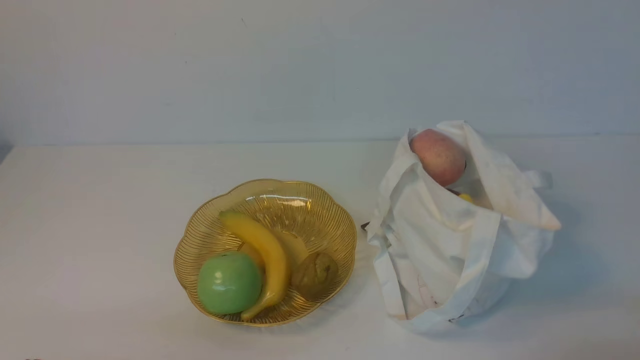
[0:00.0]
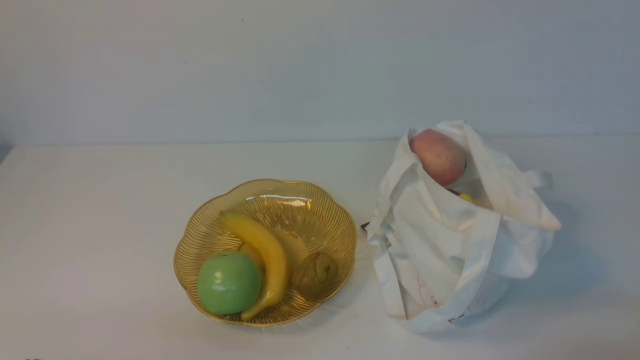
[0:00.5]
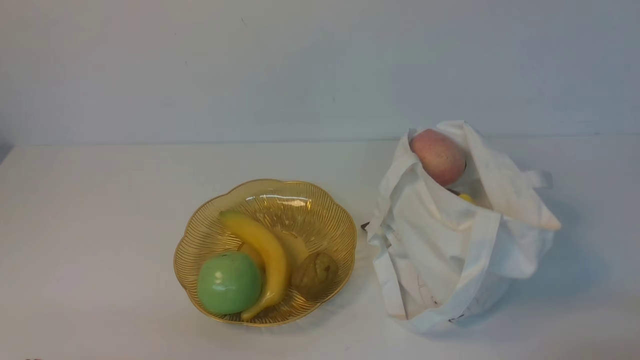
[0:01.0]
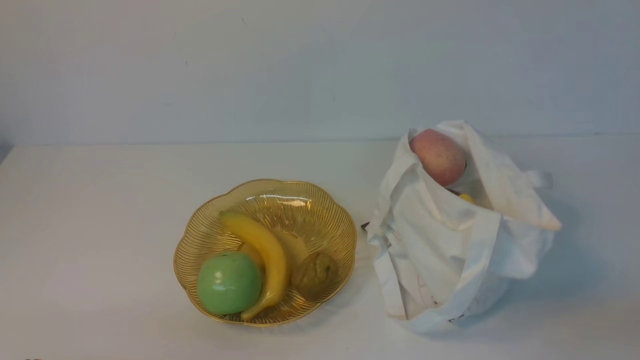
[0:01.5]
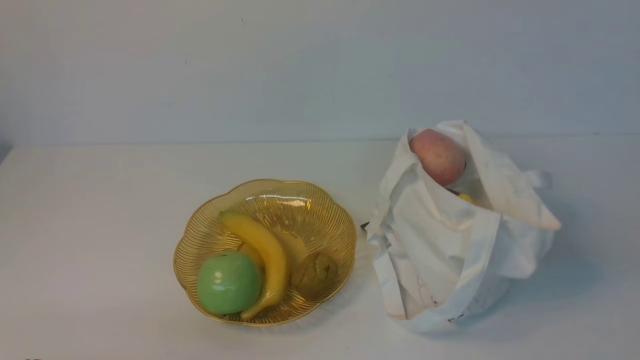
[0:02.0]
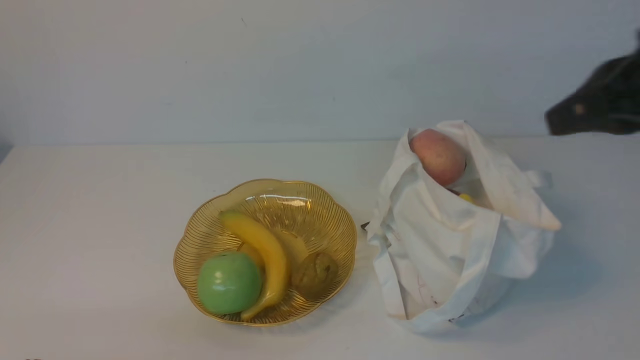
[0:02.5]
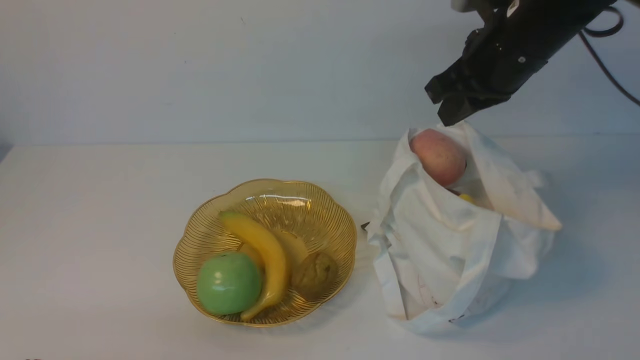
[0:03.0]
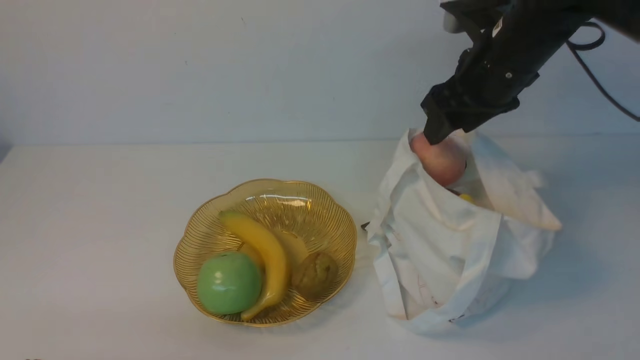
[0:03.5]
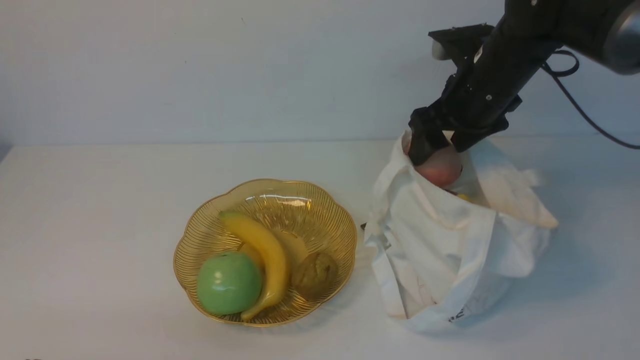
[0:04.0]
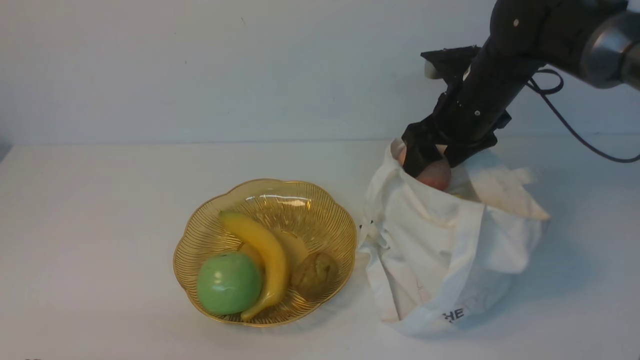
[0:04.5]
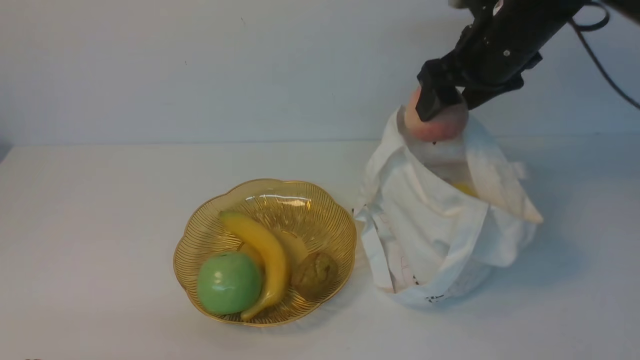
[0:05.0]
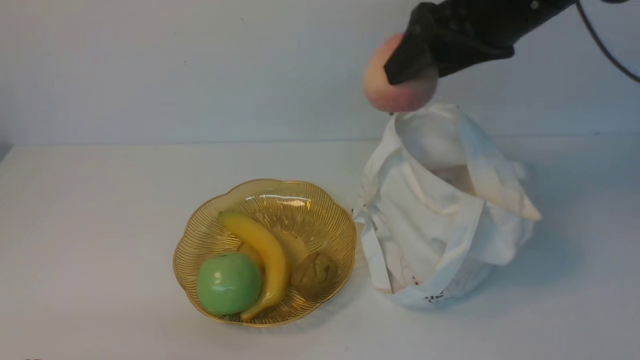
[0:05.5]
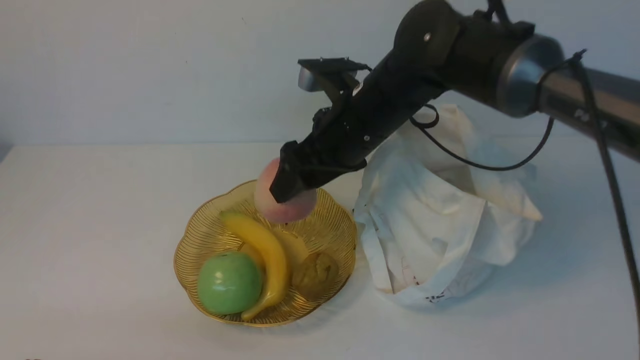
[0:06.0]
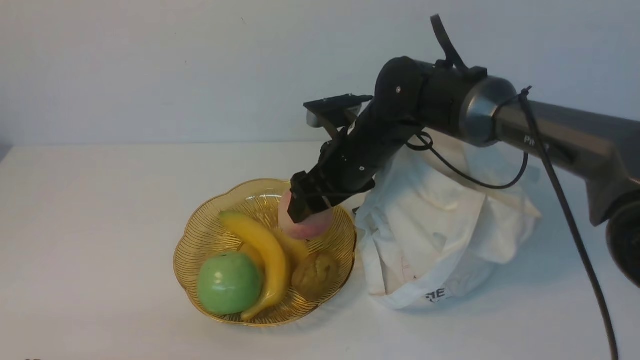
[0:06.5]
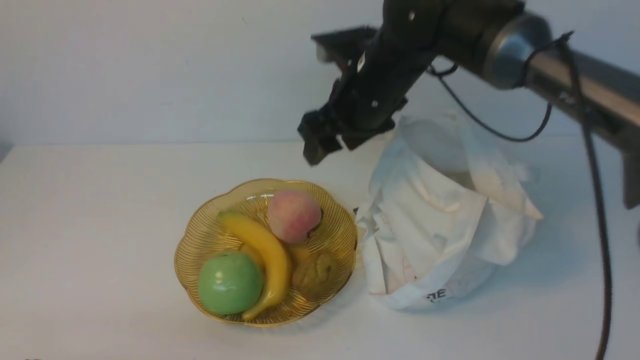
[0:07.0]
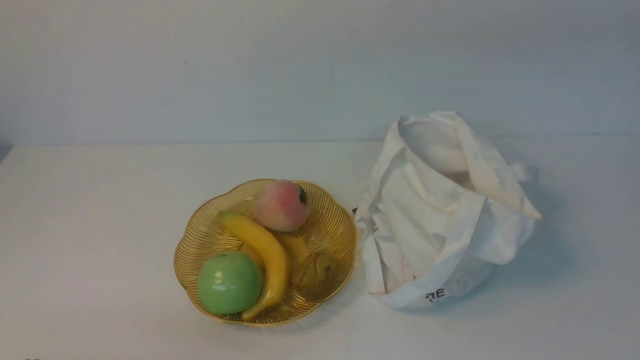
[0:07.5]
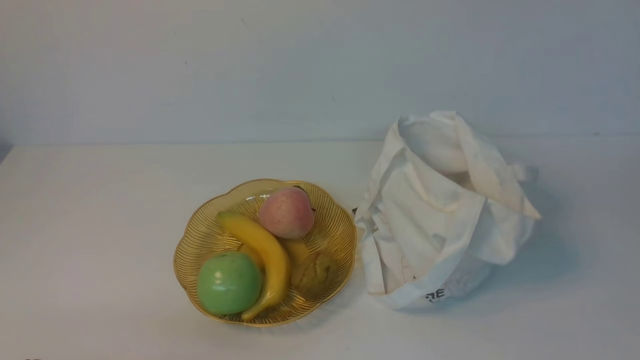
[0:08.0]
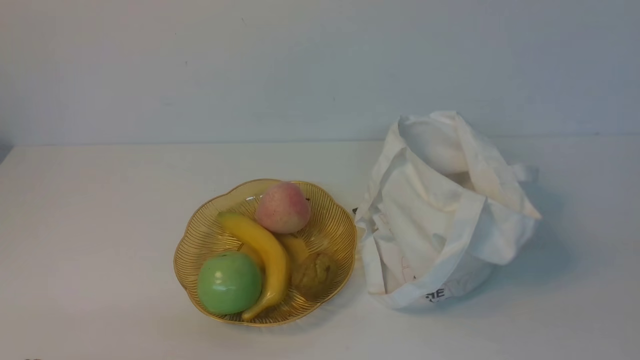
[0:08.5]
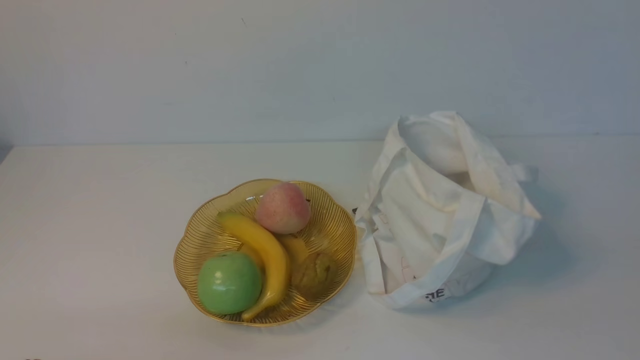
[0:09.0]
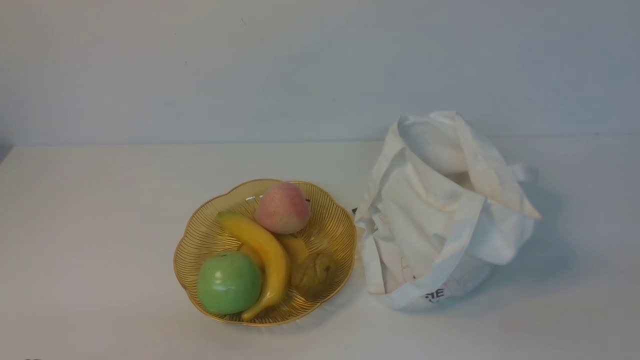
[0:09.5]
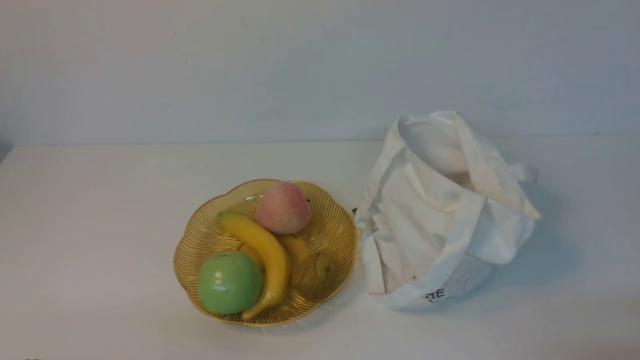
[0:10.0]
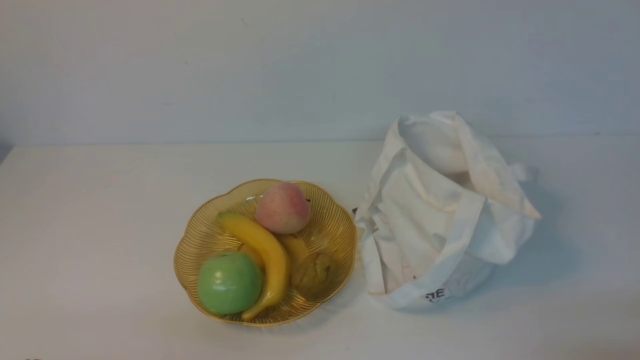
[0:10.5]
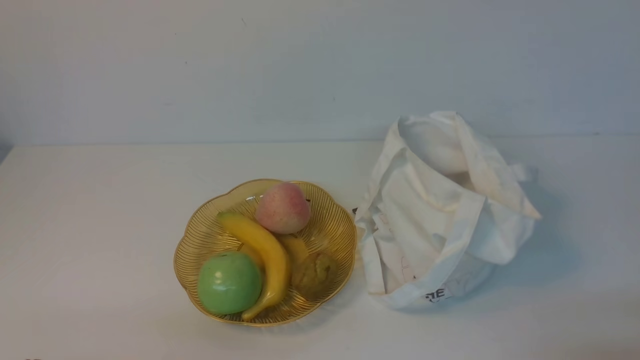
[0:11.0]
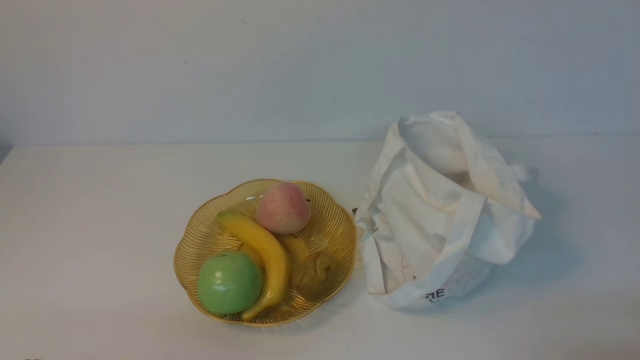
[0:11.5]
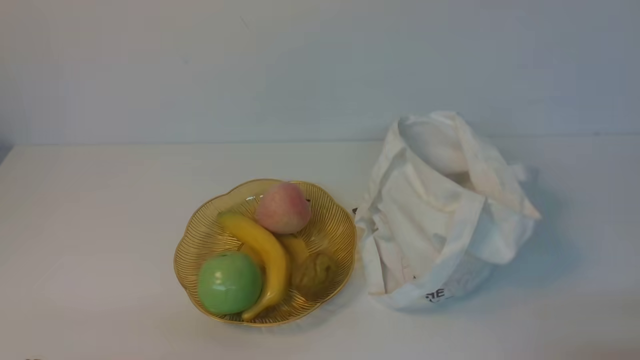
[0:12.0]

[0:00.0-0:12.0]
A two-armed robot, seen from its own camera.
Step, 0:00.0 to 0:04.5: use the right arm to grab a peach from the bag.
Step, 0:05.0 to 0:06.5: use the right arm to put the peach into the empty plate on the left.
0:02.0 to 0:04.0: The right gripper is displaced forward by about 35 cm, and opens up.
0:04.0 to 0:06.0: The right gripper heads to the left, covering approximately 10 cm.
0:06.0 to 0:08.0: The right gripper is displaced backward and to the right by approximately 40 cm, and closes up.
0:10.0 to 0:12.0: Both grippers stay about where they are.
